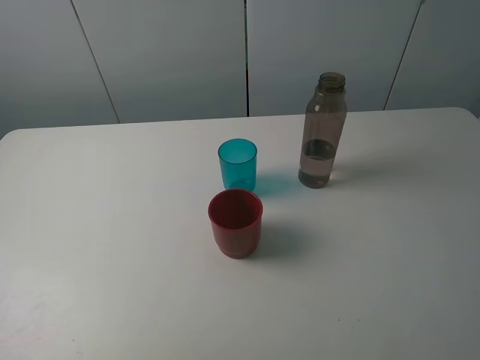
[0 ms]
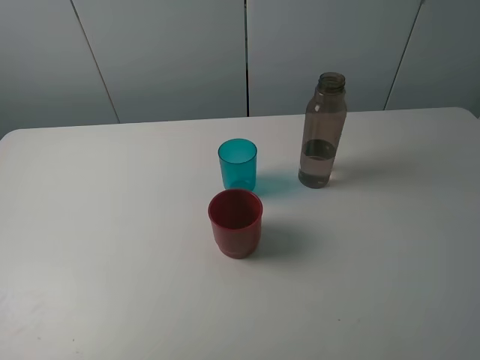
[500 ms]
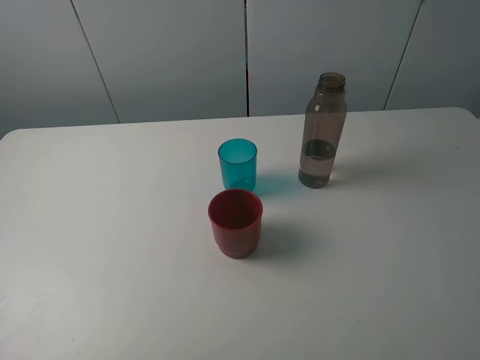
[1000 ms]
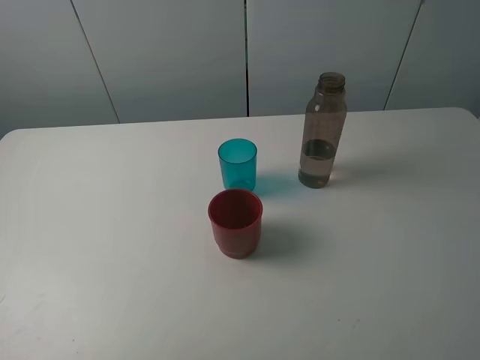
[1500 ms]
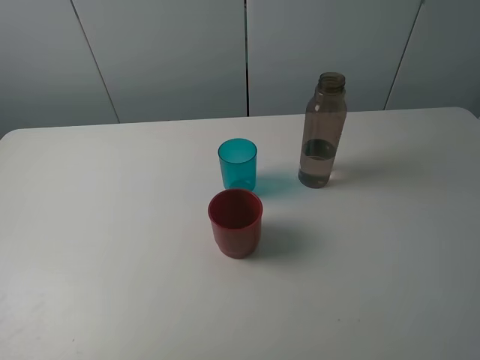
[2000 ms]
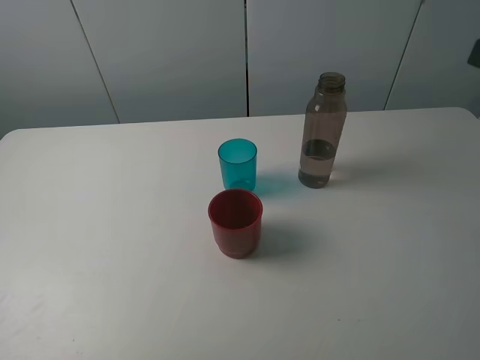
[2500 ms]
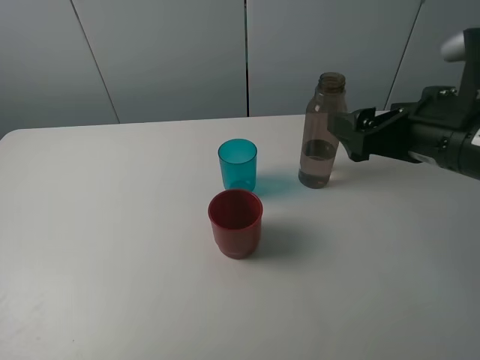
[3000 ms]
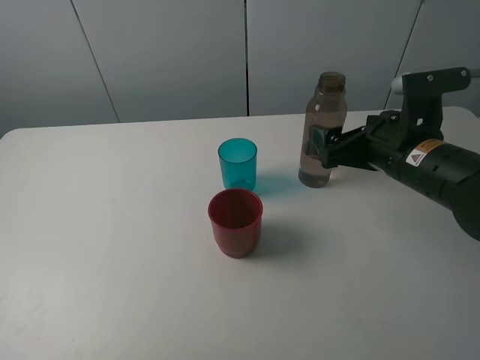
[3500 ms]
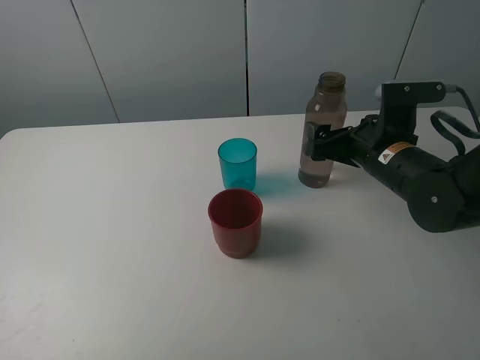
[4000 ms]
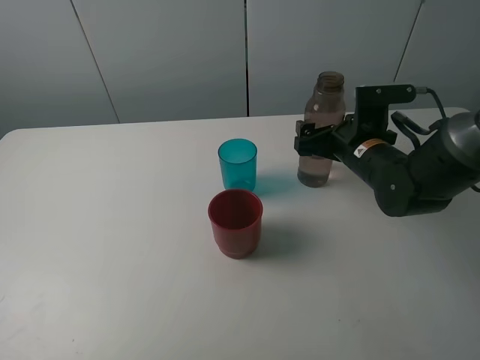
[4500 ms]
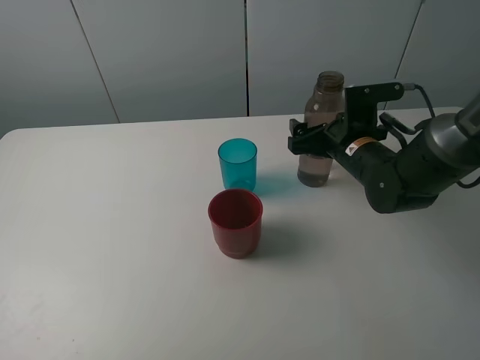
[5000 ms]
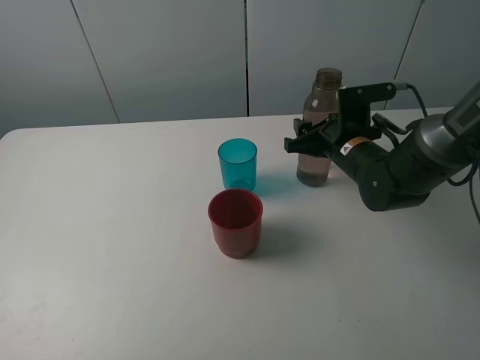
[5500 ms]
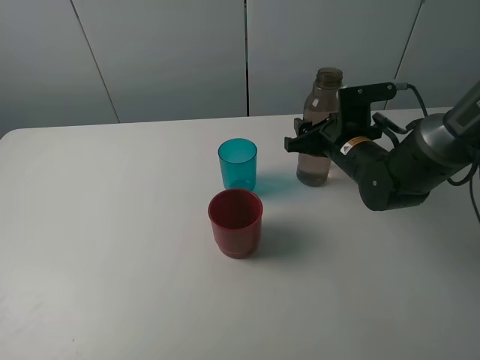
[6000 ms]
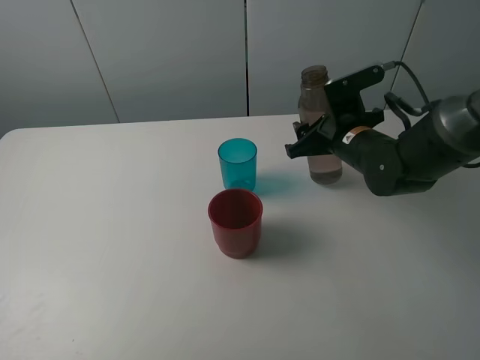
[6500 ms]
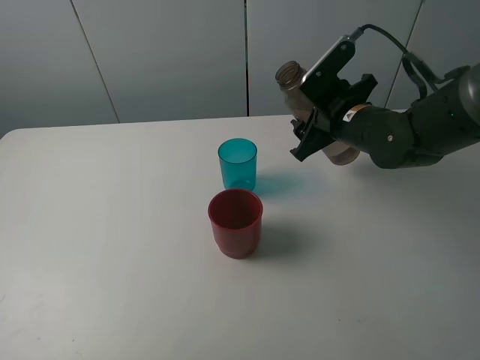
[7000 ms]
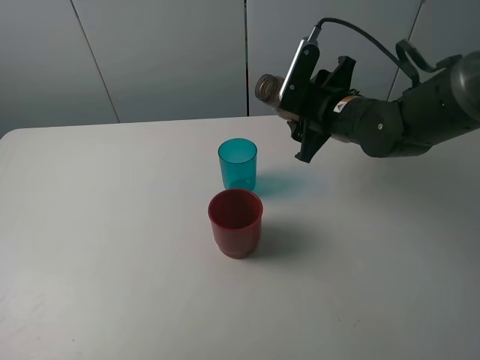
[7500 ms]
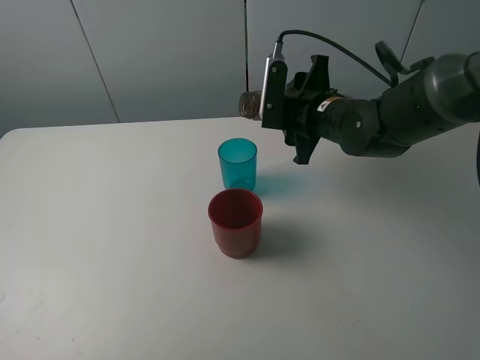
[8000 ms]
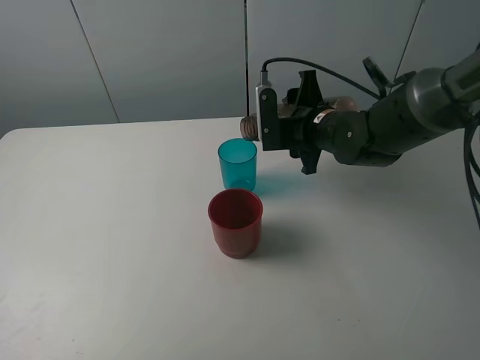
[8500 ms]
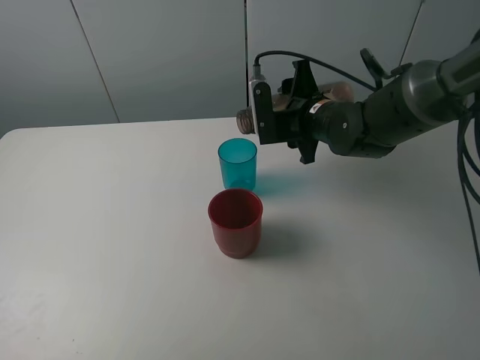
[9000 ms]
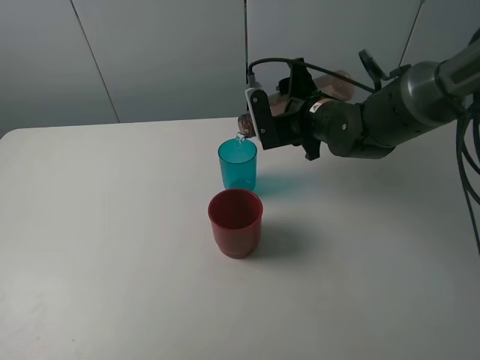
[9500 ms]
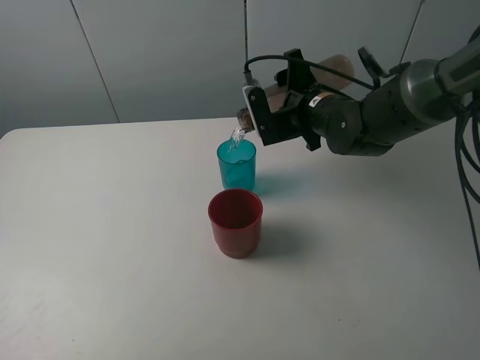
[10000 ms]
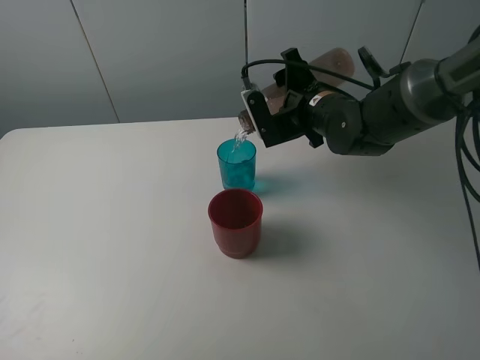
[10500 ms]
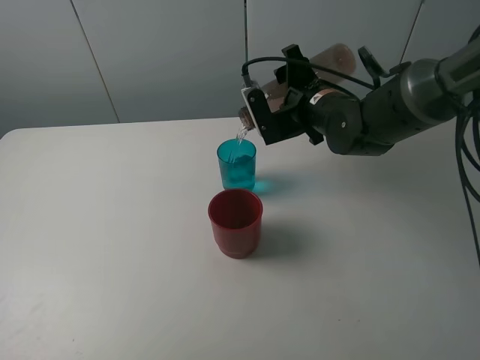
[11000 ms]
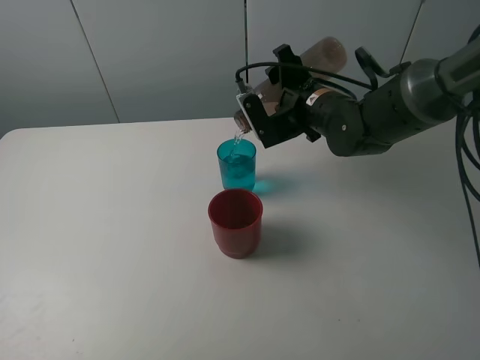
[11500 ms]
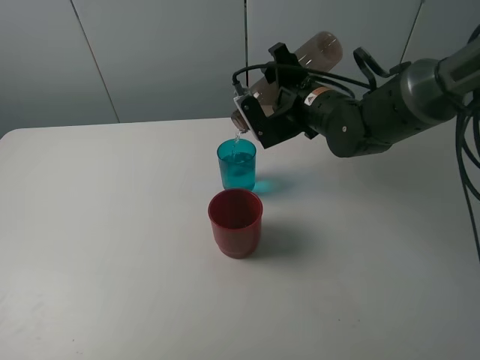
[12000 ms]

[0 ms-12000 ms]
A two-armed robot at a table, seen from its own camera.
Task of the whole recording: pick up the bottle and pour water into the cup, then pick up the cup containing water and pour it into another cup.
Step, 0 ms to 5500 ms: Grasp the brown bottle with the right gripper.
2000 ms to 4000 ms: The right gripper travels downward, forward and to the left by roughly 30 cm, and opens.
4000 ms to 6000 ms: The right gripper goes about 5 cm forward, and closes.
6000 ms to 8000 ms: The right gripper moves upward, about 5 cm.
10000 ms to 12000 ms: There are only small adjustments of the grippers.

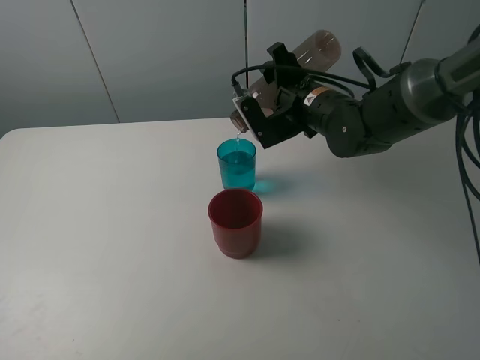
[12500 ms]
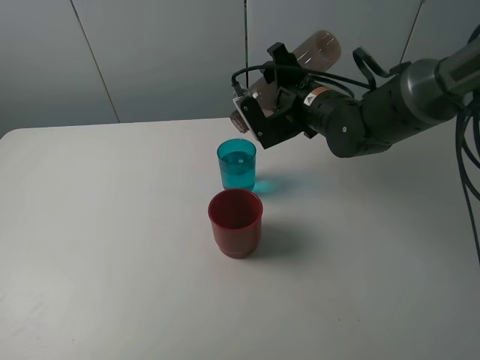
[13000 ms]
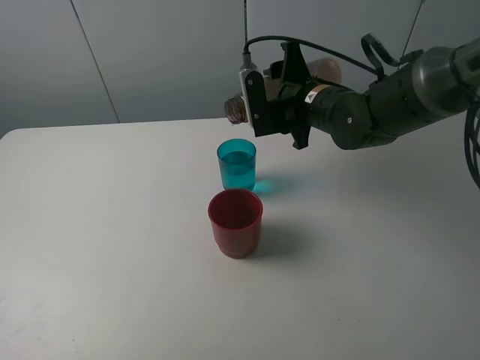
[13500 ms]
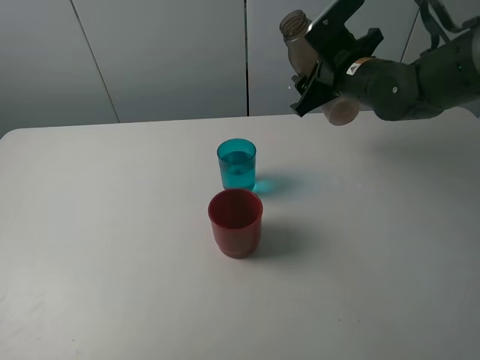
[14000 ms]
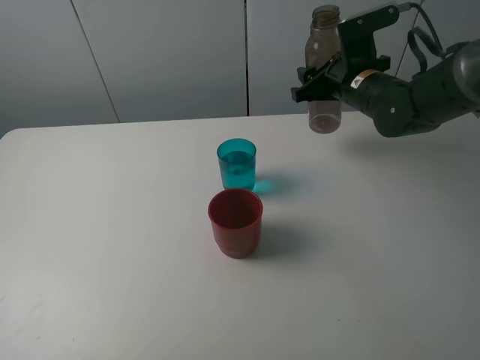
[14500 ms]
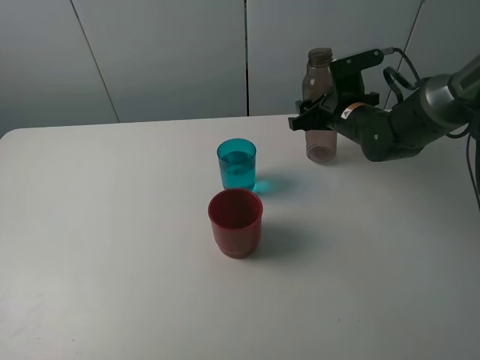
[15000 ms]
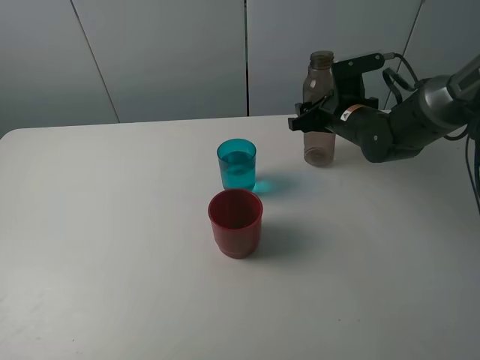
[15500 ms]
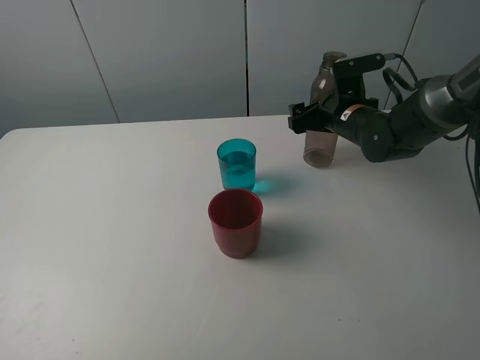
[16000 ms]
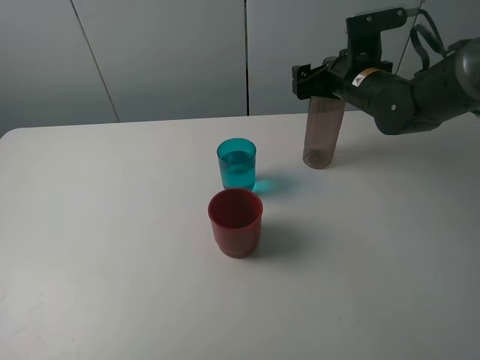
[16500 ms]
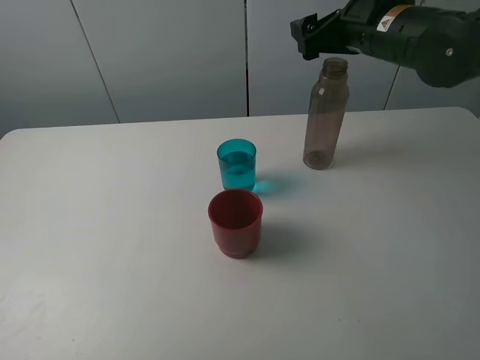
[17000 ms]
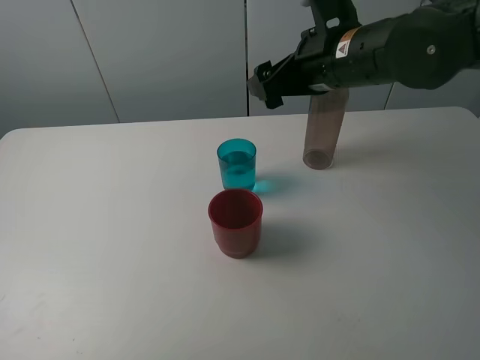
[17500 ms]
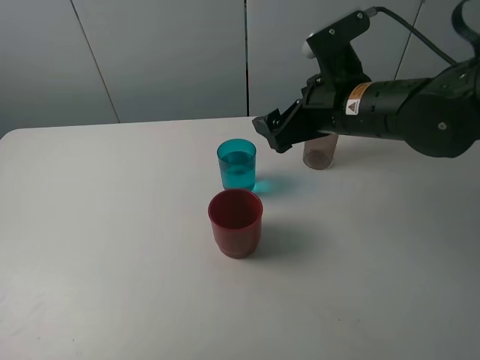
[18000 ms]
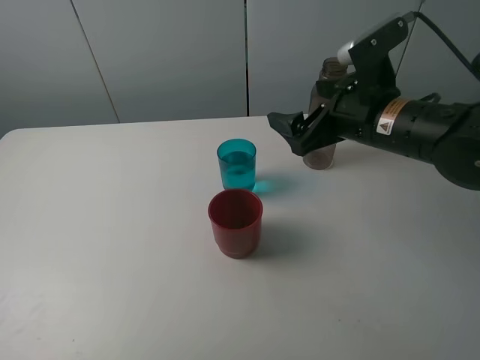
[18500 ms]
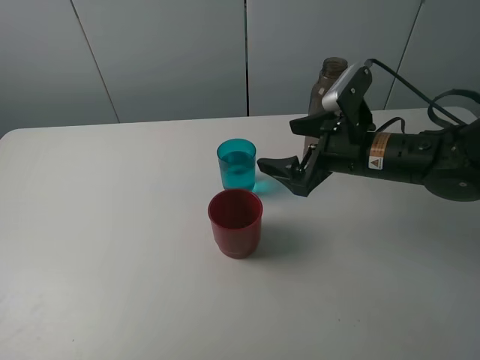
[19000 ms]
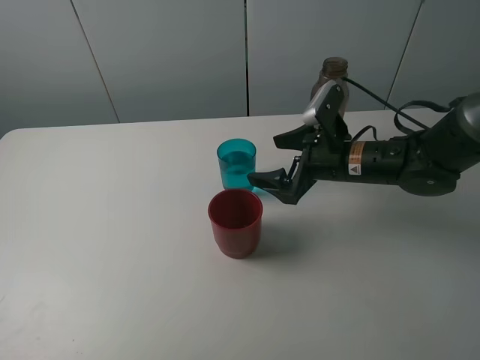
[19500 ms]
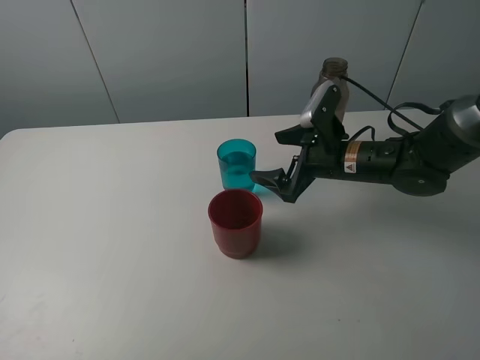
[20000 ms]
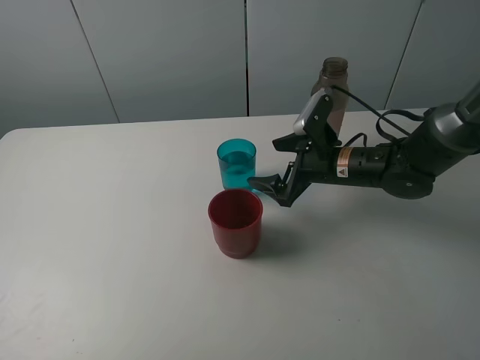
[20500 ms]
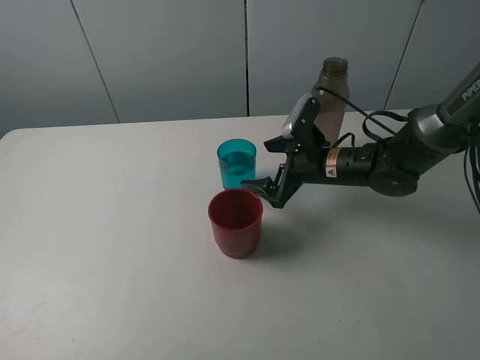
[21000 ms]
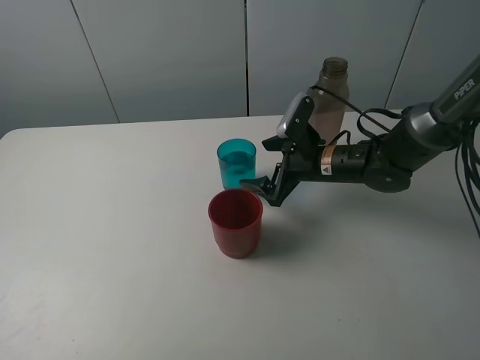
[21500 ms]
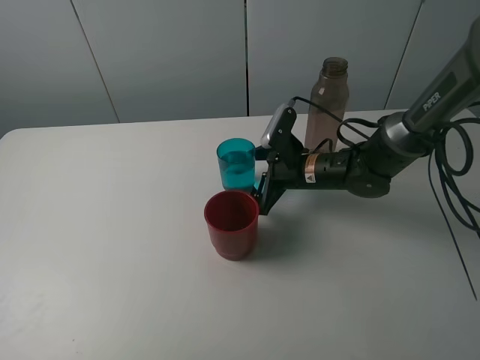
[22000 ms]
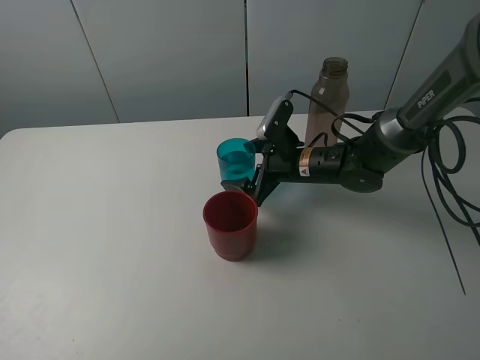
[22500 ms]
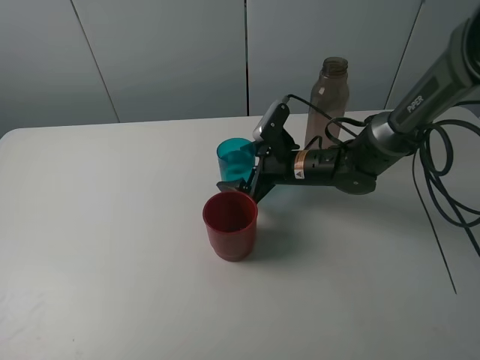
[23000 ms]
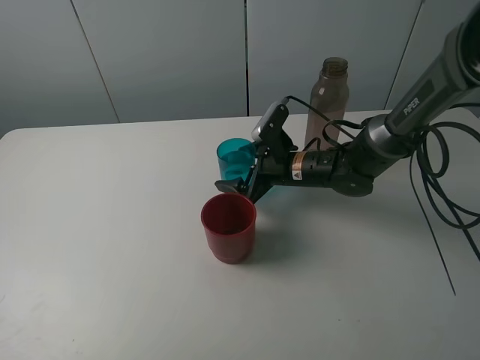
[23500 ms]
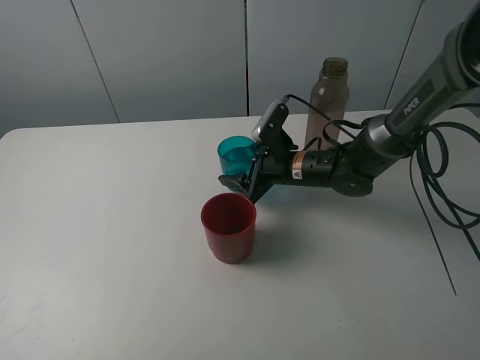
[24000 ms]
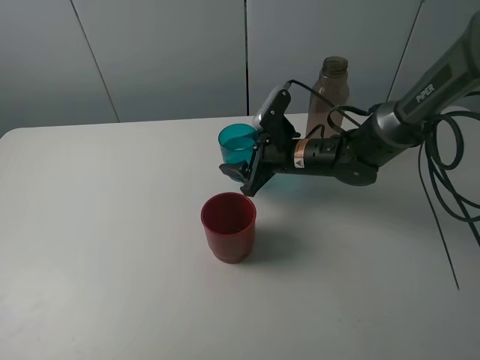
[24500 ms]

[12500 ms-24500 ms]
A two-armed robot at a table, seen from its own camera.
Task of the whole recording: pick up the bottle and pour water into the cup, then pick up the cup containing water and pour it into another cup.
Step, 13500 ms to 16000 ms: Place the brown bottle with the right gripper.
Step, 16500 ms to 23500 ms: Grasp the blue cup with the right gripper.
12500 ms to 14500 ms: The right gripper moves to the right, approximately 5 cm.
14500 ms to 16500 ms: The right gripper opens up.
16500 ms to 18500 ms: The right gripper heads backward, covering approximately 10 cm.
18500 ms to 20500 ms: The right gripper heads downward and forward, covering approximately 10 cm.
20500 ms to 22500 ms: The right gripper changes place by roughly 5 cm.
22500 ms to 24500 ms: The right gripper closes.

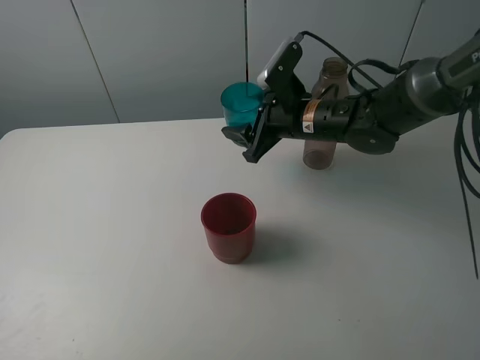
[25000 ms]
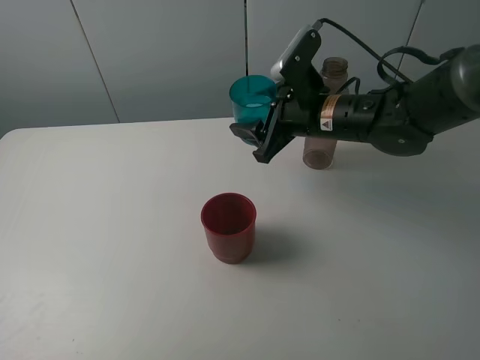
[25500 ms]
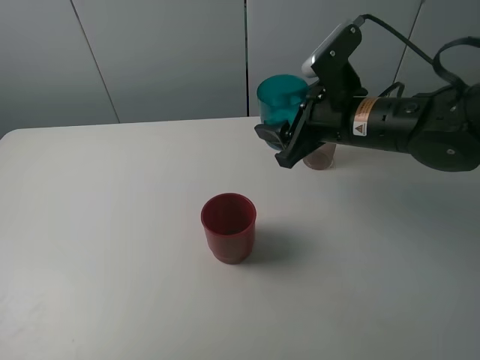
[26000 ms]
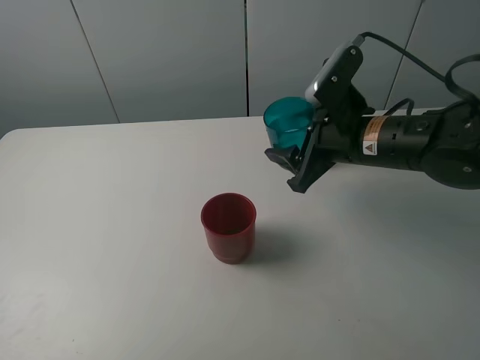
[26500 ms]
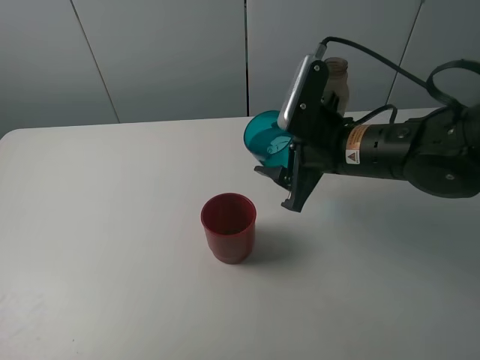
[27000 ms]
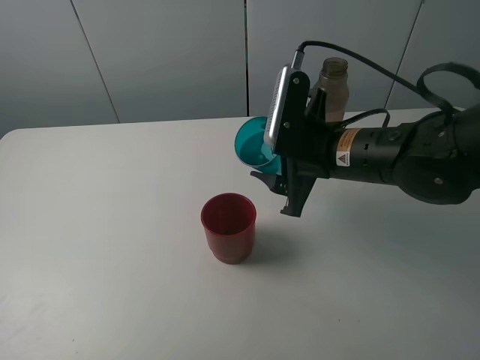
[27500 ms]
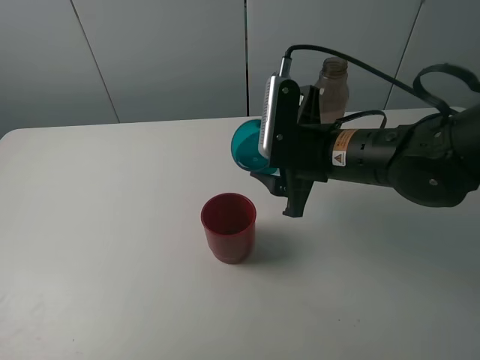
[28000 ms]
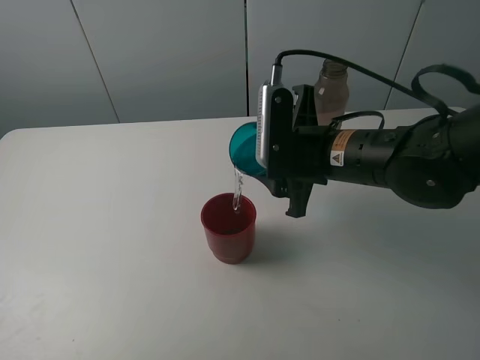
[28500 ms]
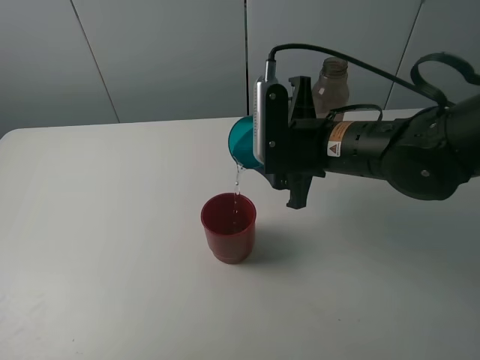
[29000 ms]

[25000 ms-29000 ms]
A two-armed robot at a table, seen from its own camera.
Task of the whole recording: pick up the bottle and pour water into the cup, then pick up the cup containing water and pour it into another cup.
25000 ms to 27000 ms: The right gripper is displaced backward by approximately 10 cm.
